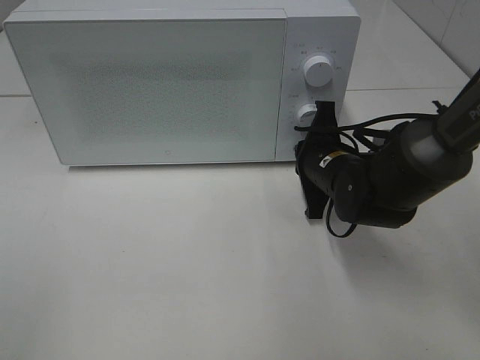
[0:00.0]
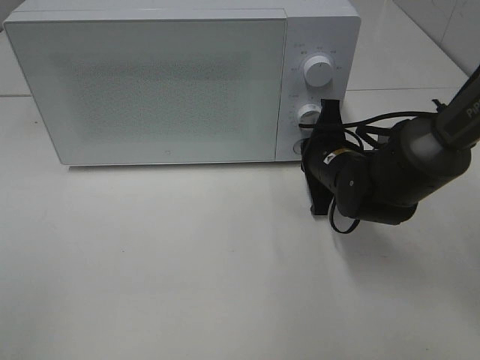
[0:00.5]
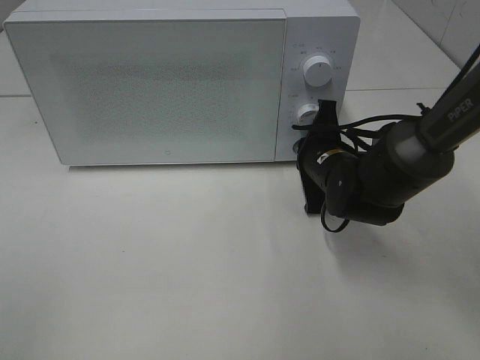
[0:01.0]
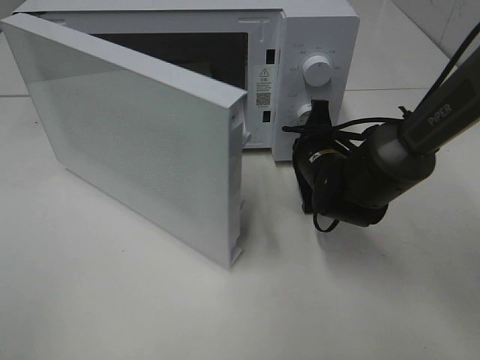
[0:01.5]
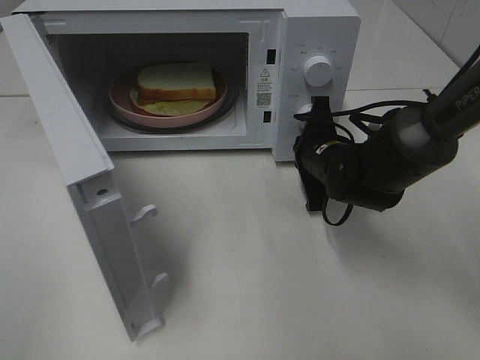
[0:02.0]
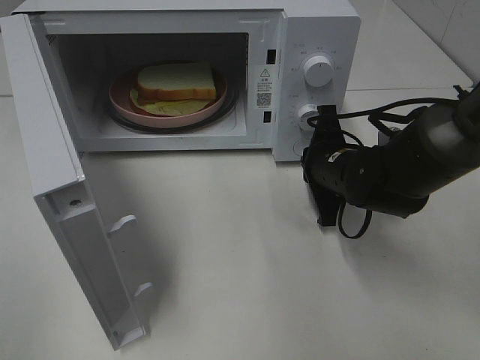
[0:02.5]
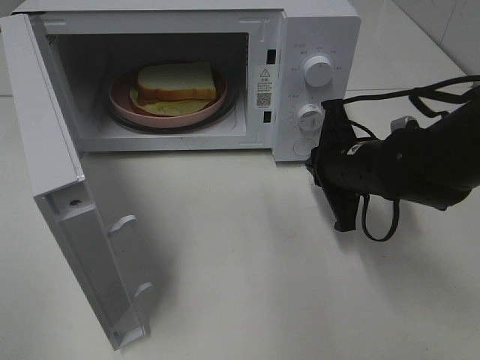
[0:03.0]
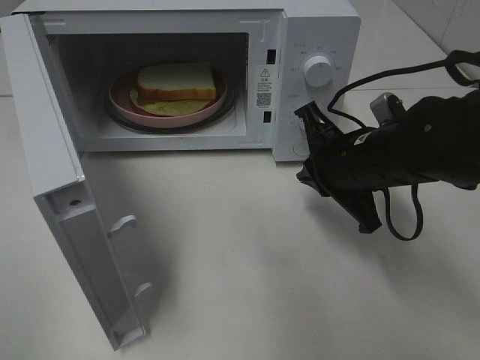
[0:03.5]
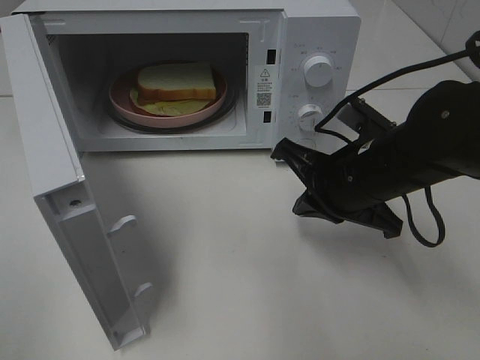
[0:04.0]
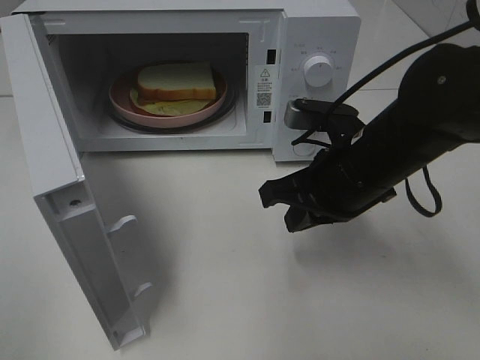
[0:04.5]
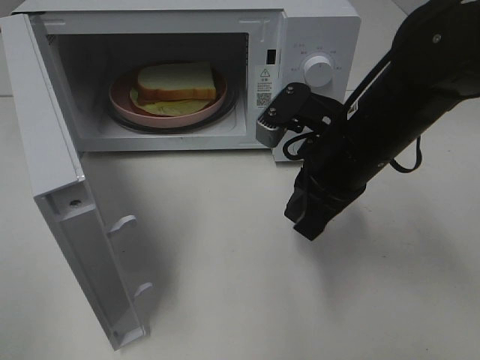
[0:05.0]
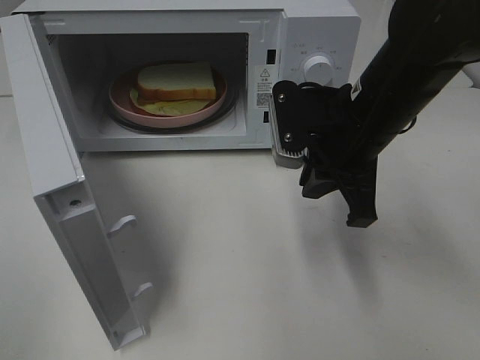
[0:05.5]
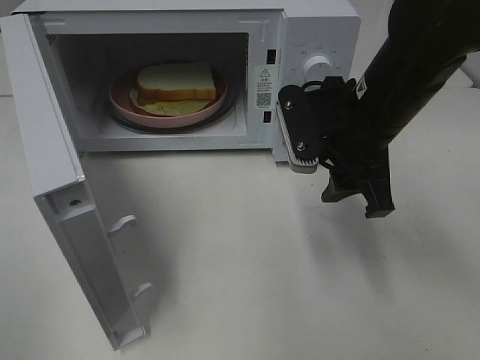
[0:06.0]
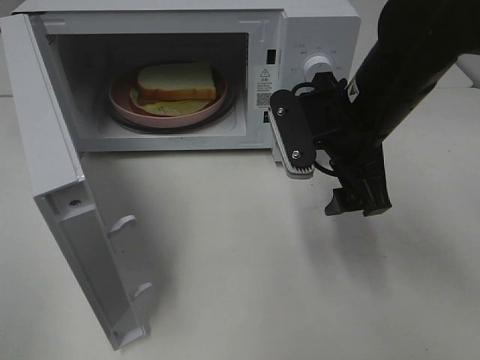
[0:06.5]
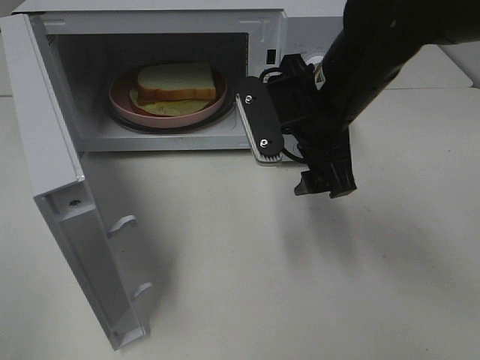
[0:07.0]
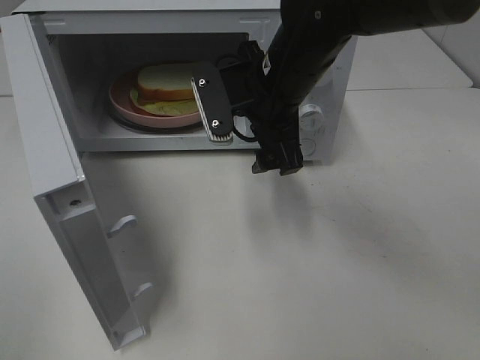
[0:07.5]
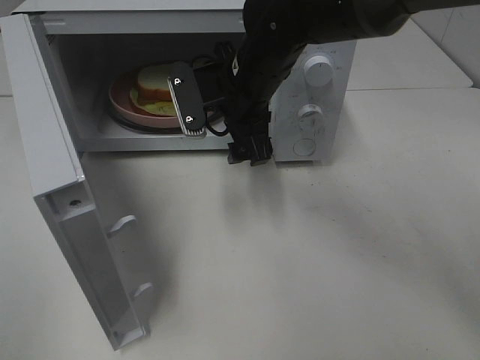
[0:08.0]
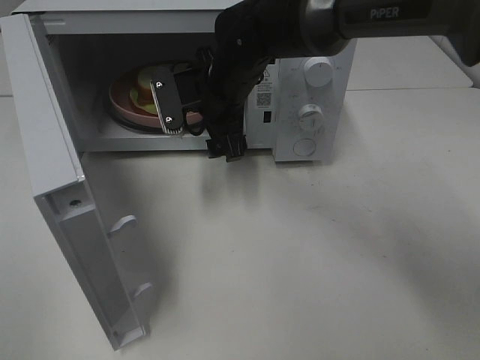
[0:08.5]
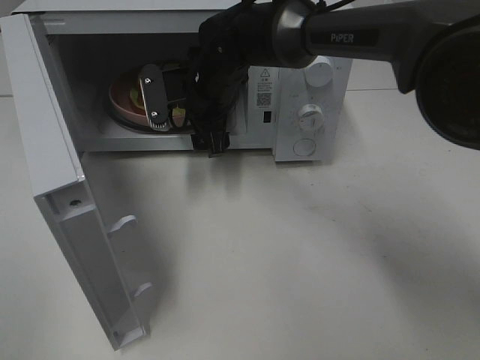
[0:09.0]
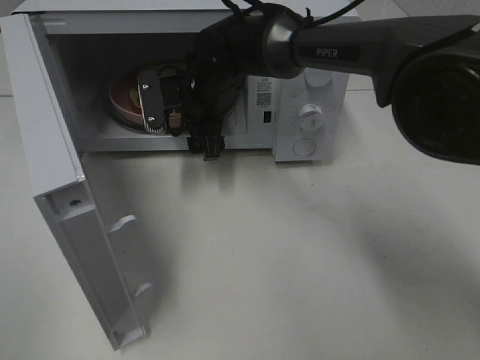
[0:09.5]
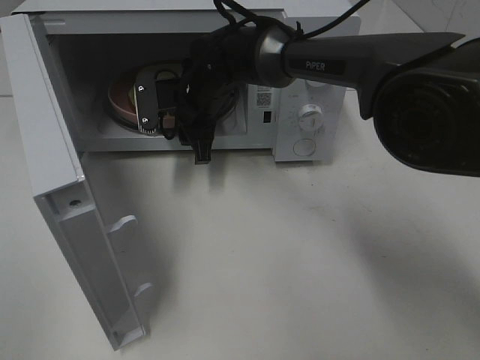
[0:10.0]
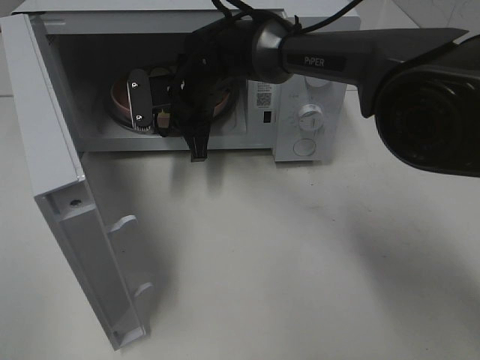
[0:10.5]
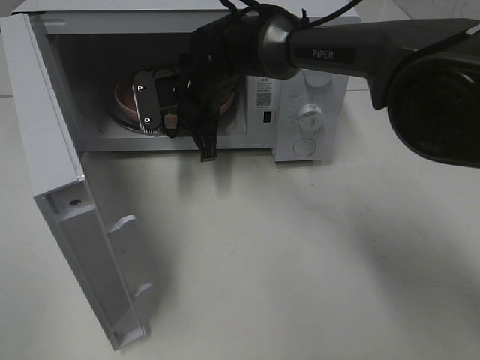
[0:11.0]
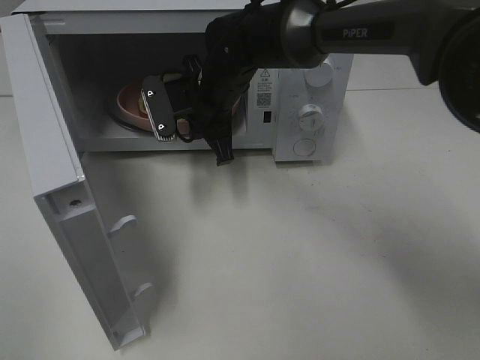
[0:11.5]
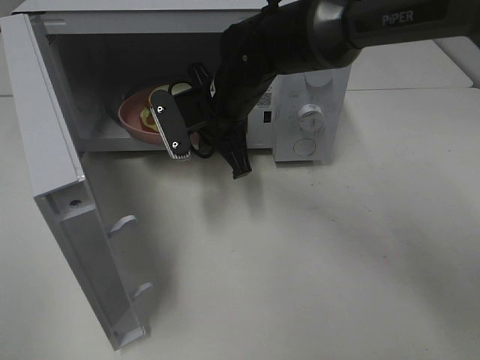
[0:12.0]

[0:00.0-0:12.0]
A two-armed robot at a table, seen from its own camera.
Task of the whole recording: Heat Sandwich.
Step, 0:00.0 to 0:02.5: Right hand: press the switch.
Step, 0:03.0 to 0:10.0: Right hand: grab the plate with the sandwich.
0:02.0 to 0:04.0: The right gripper travels backward and upward by approximately 10 cm.
0:04.0 to 0:06.0: The right gripper goes about 5 cm upward, and opens up.
0:06.0 to 0:08.0: The right gripper moves to the left and forward, approximately 15 cm.
0:08.0 to 0:10.0: The right gripper heads forward, downward and to the left, covering roughly 10 cm, and closes its fingers.
0:10.0 to 0:12.0: The right gripper travels backward by some 5 cm.

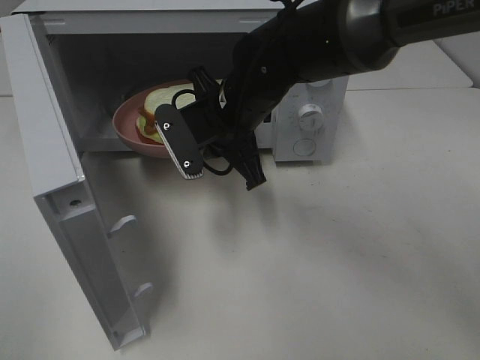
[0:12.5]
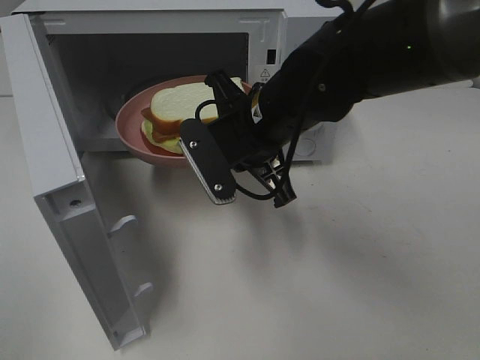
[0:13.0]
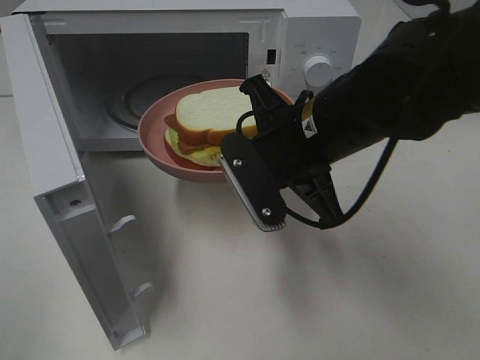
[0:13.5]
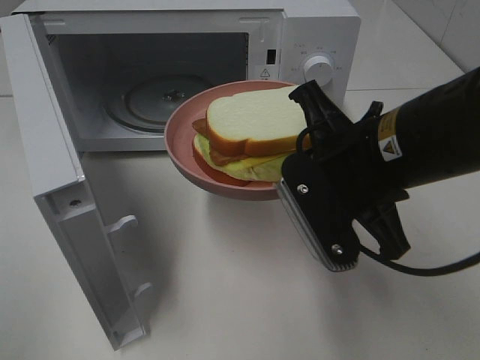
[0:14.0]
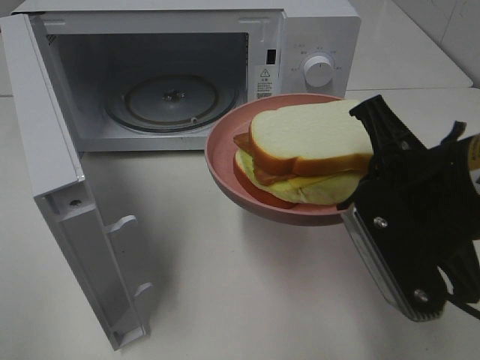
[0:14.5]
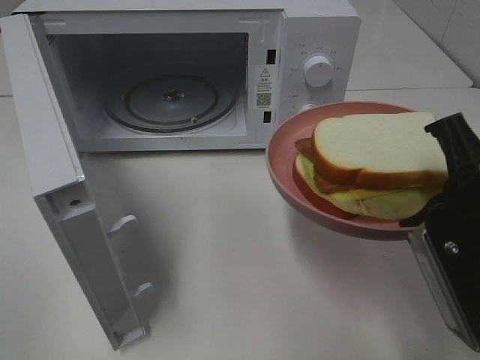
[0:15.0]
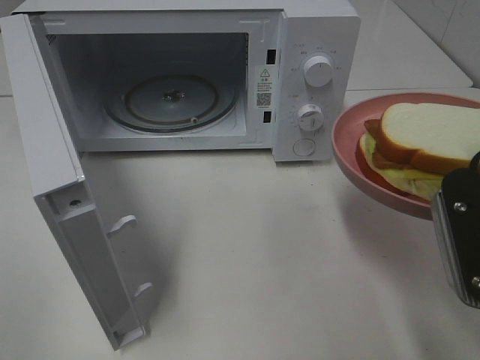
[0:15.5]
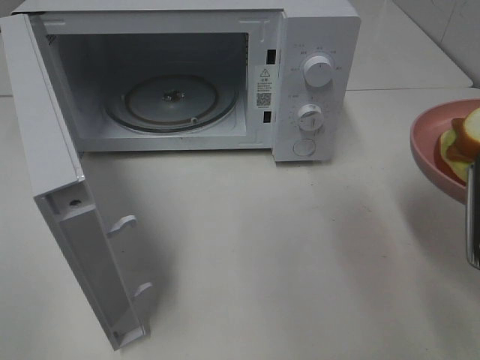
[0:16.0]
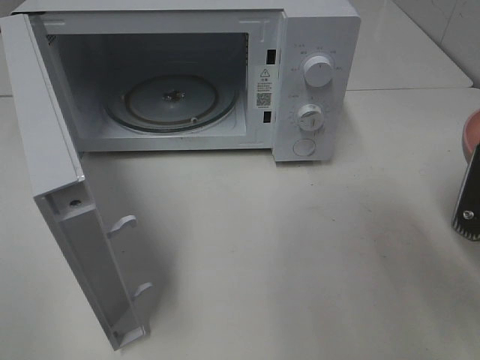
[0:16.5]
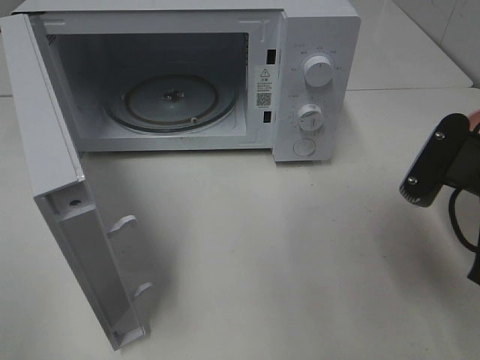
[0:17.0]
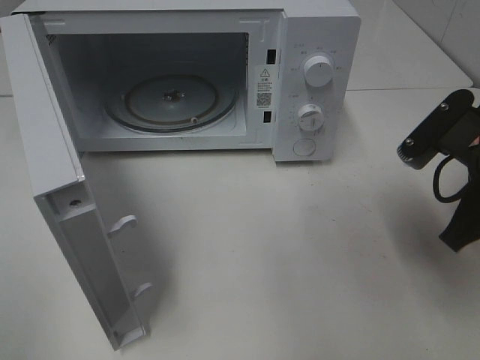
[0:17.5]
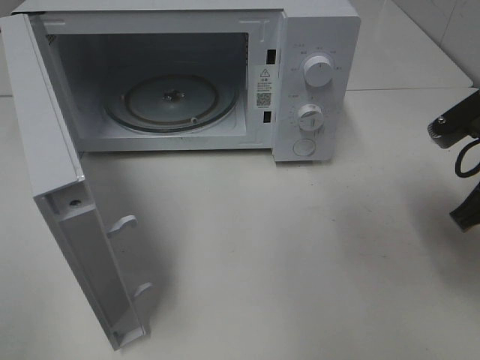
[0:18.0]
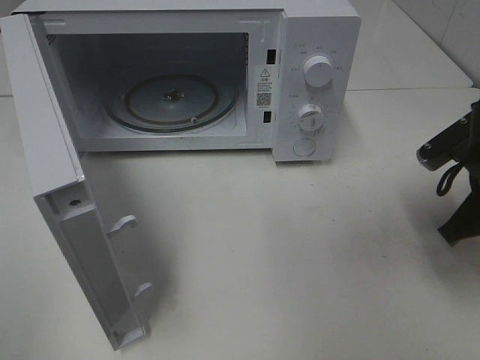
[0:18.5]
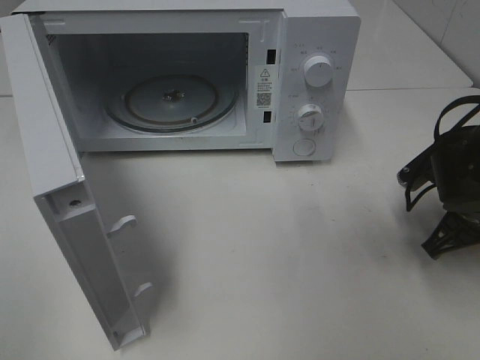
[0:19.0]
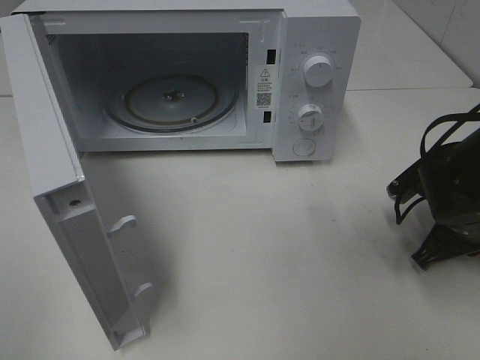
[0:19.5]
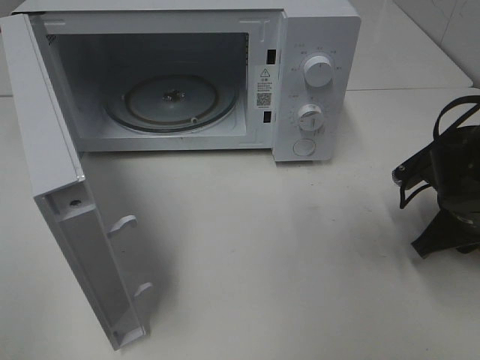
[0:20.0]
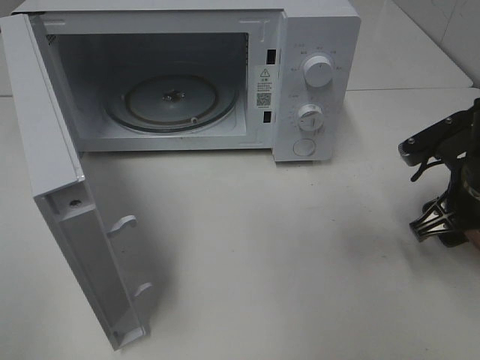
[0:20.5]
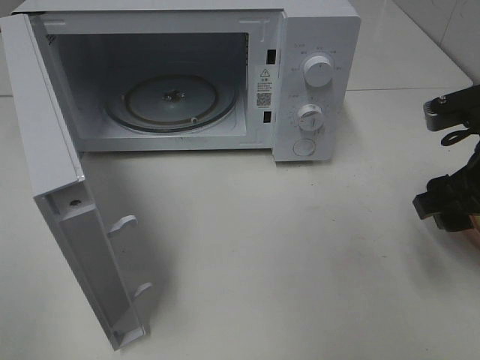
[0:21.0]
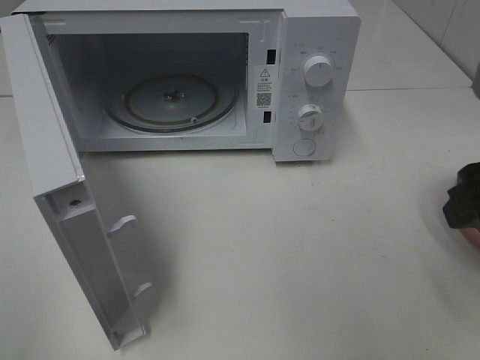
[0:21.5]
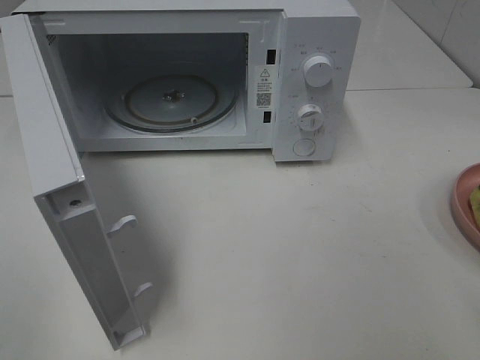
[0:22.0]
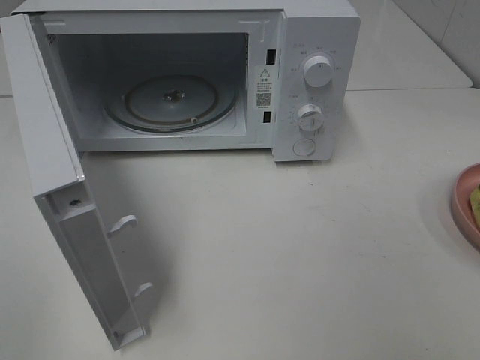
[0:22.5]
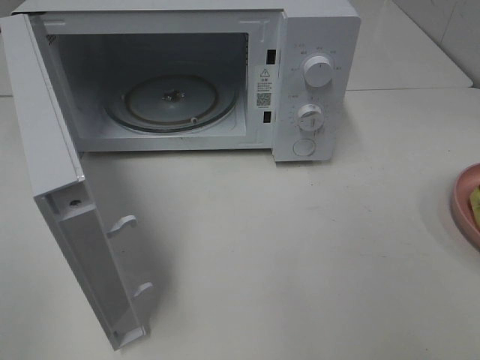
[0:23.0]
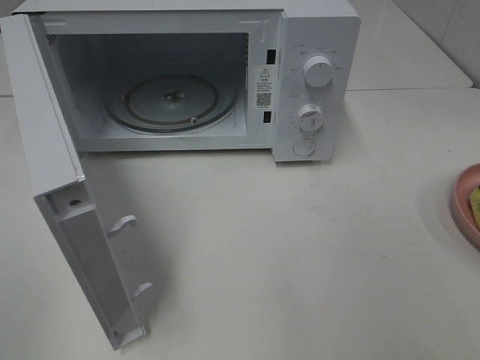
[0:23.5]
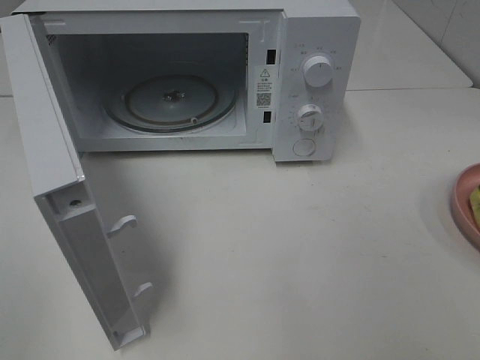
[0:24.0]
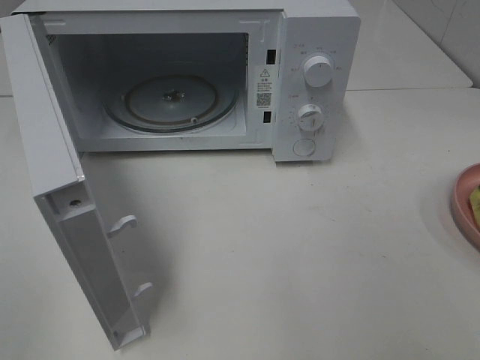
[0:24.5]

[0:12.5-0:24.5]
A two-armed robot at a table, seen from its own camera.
Task of the whole recording: Heat Sandwich.
Step, 0:12.5 to 0:21.0: Right hand: place the plate on the table.
0:12.5 to 0:14.5: The right gripper heads backward and to the right, covering roughly 25 cm.
0:14.5 to 0:16.5: The right gripper moves to the right, approximately 10 cm.
0:16.5 to 0:18.5: The right gripper is displaced forward and downward by approximately 10 cm.
0:18.5 to 0:20.5: The right gripper opens up.
0:20.5 to 0:22.5: The right gripper heads backward and upward, covering some 25 cm.

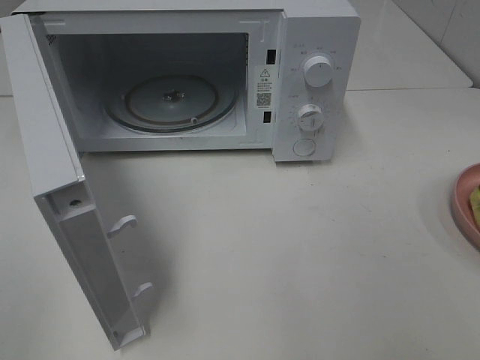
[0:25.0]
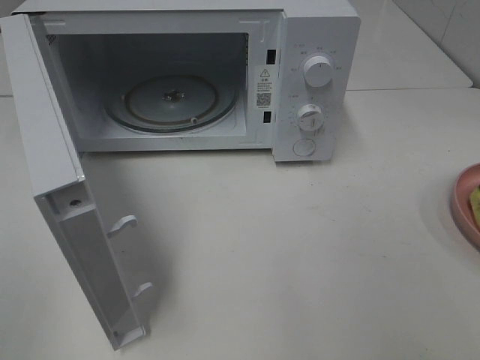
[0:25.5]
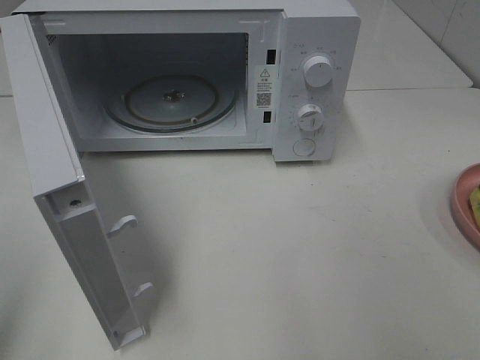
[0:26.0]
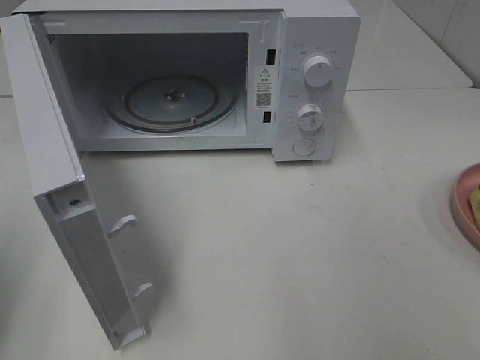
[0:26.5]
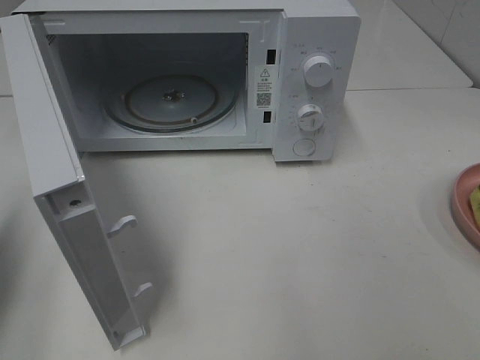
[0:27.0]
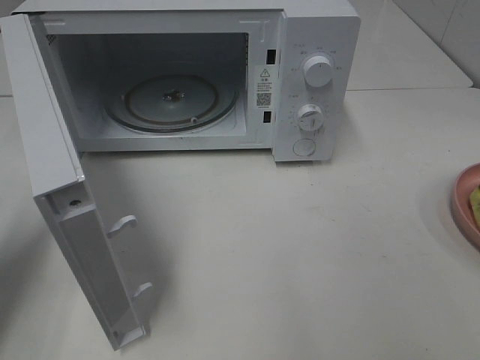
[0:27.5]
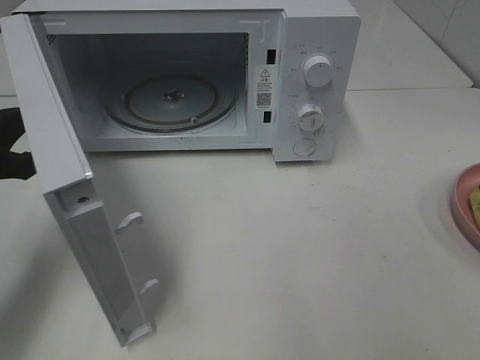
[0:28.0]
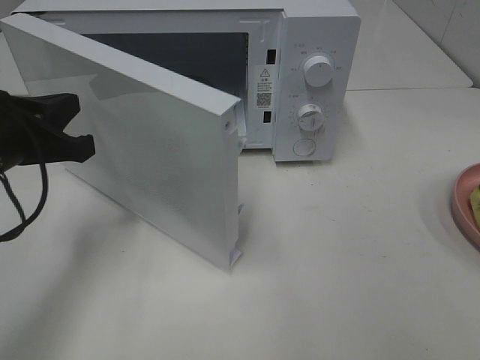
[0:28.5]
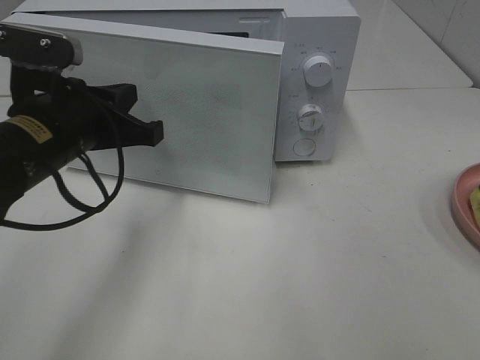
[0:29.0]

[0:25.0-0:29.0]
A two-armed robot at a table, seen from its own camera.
Task of the whole recording: Heat Sandwich.
0:25.0 to 0:27.0: The left gripper moves forward, about 20 cm, and closes its fingers.
0:27.0 to 0:29.0: The left gripper heads to the right and forward, covering approximately 20 cm.
